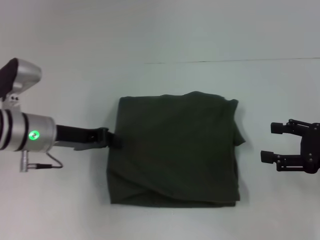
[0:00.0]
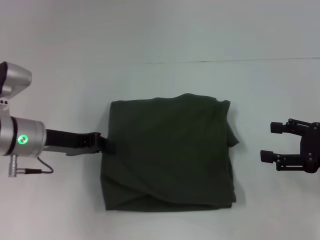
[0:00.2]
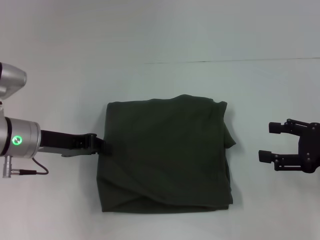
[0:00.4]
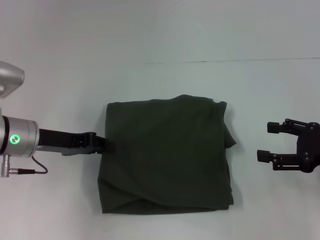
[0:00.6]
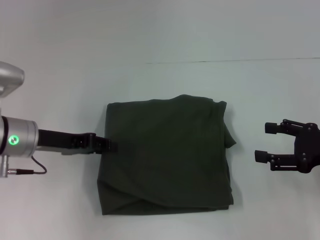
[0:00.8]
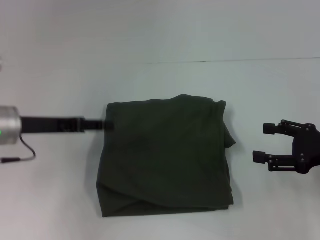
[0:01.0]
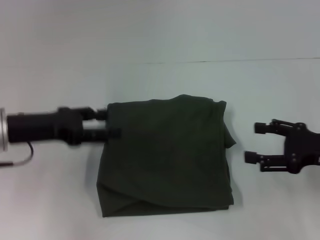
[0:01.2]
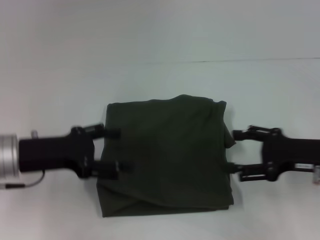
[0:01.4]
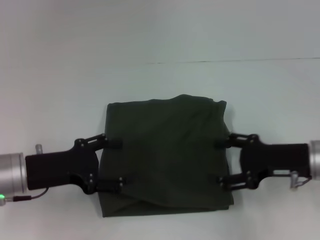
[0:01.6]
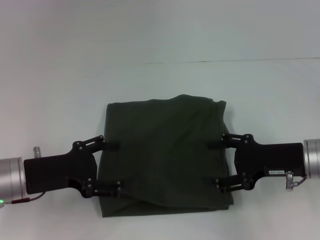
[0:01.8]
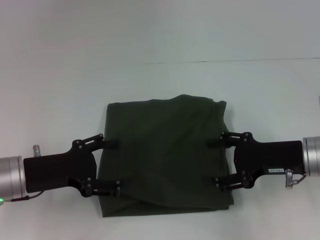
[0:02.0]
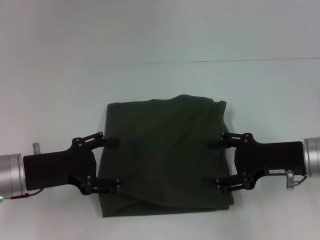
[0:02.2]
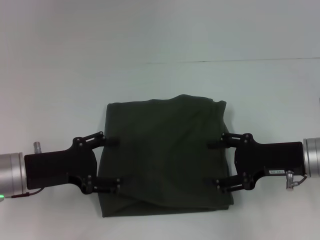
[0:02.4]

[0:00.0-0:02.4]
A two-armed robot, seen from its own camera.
0:00.0 to 0:01.2: The left gripper moves about 5 cm, and opens its fingers.
0:01.2 to 0:02.4: The left gripper travels downward by roughly 5 cm, and opens its fingers. Meanwhile the right gripper heads to the left, covering roughly 5 cm.
